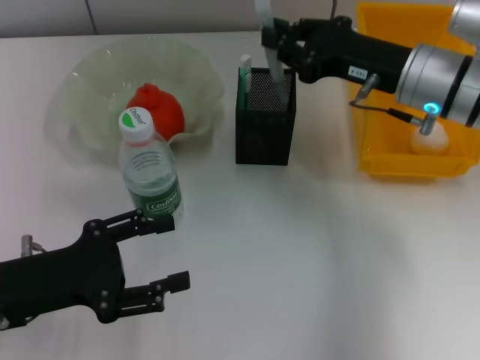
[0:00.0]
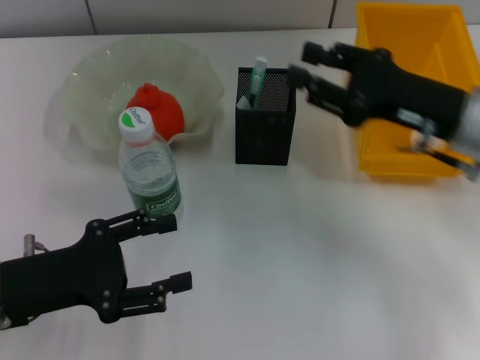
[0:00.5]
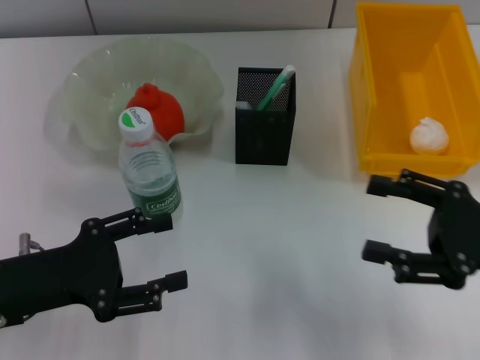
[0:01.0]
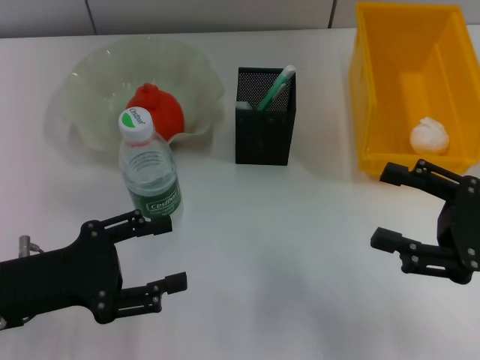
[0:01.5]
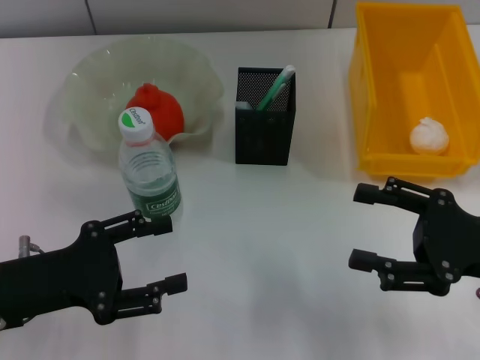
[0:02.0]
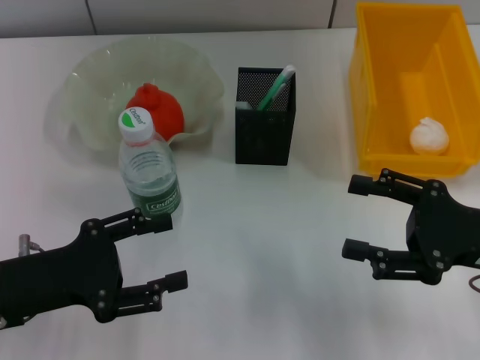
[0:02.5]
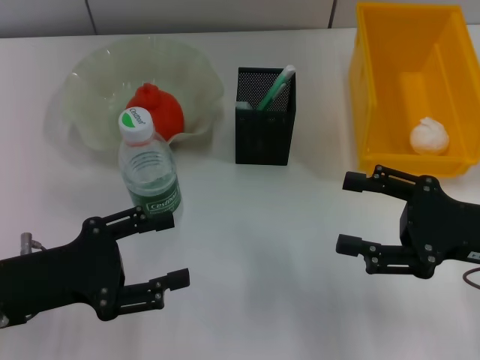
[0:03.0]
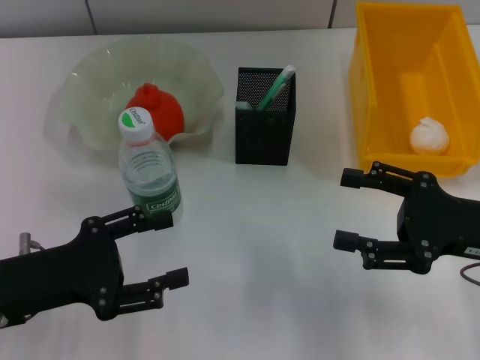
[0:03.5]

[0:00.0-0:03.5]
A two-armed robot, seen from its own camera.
0:00.0 to 0:02.0: The right gripper goes some 20 cm backward and to the right, and opens.
0:02.0 to 0:03.5: The grippers move only a little.
